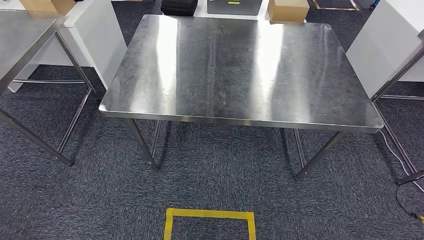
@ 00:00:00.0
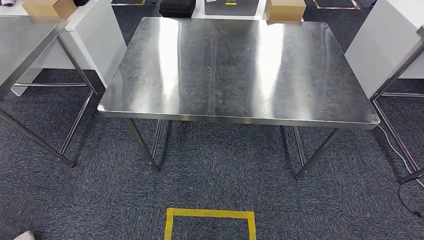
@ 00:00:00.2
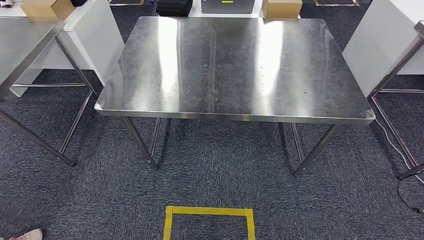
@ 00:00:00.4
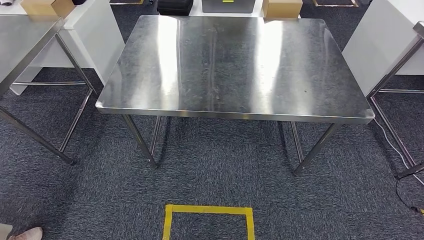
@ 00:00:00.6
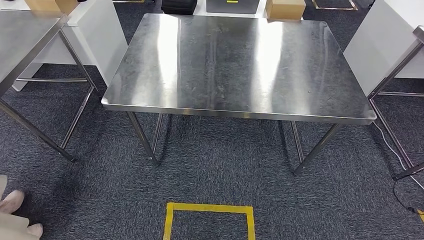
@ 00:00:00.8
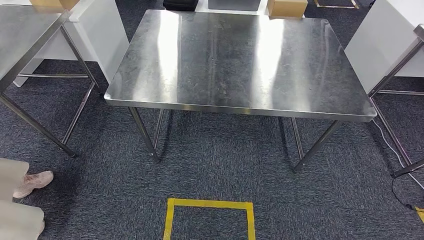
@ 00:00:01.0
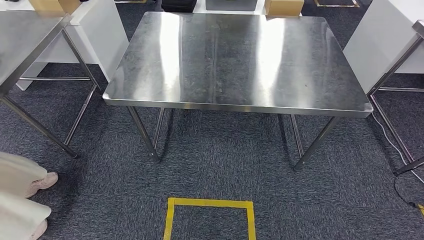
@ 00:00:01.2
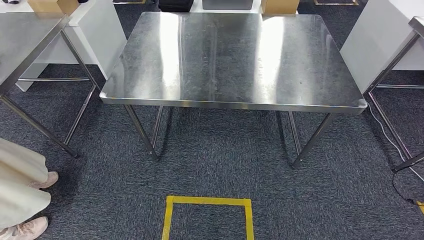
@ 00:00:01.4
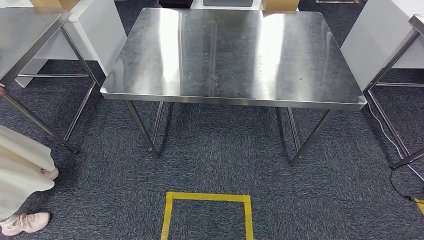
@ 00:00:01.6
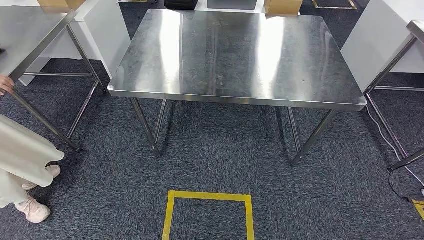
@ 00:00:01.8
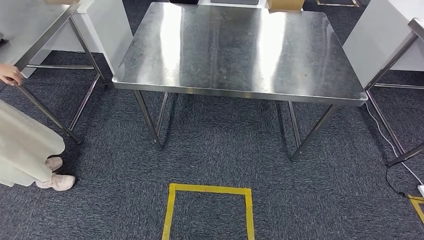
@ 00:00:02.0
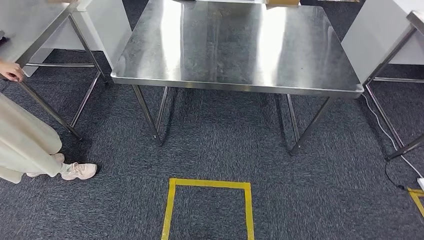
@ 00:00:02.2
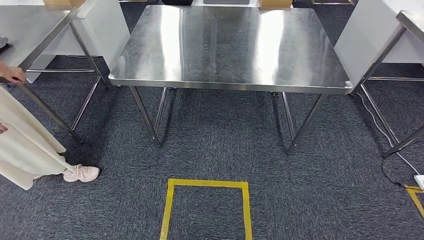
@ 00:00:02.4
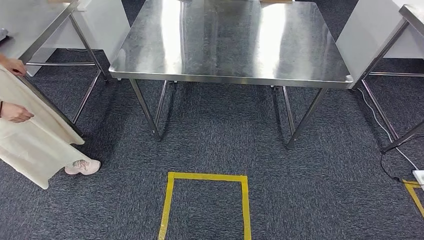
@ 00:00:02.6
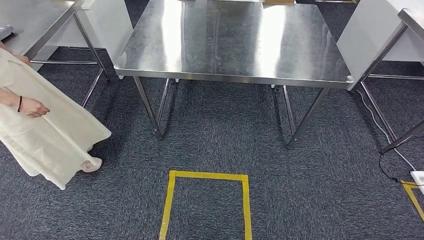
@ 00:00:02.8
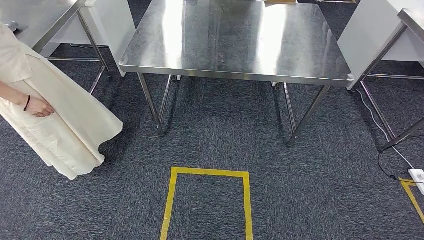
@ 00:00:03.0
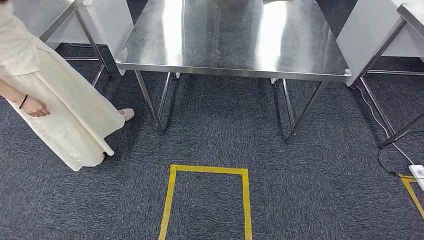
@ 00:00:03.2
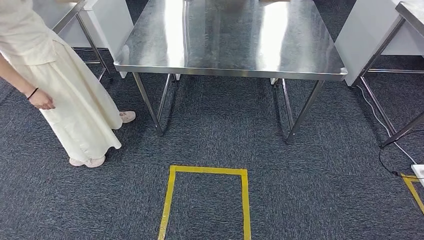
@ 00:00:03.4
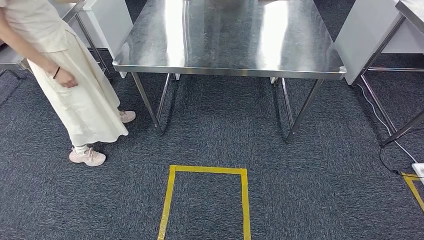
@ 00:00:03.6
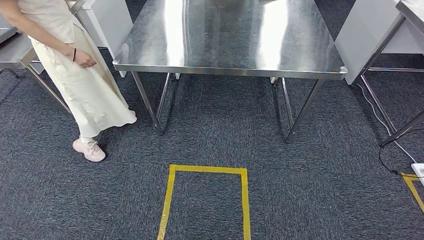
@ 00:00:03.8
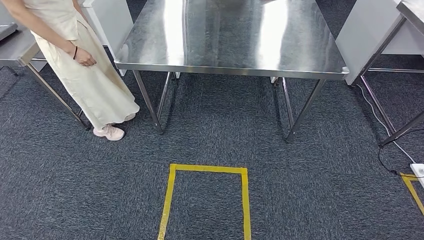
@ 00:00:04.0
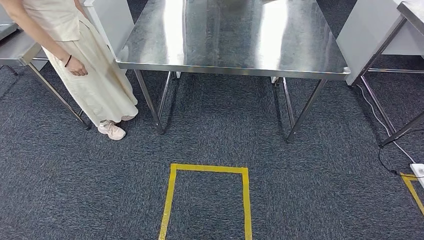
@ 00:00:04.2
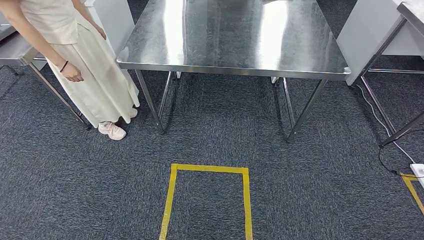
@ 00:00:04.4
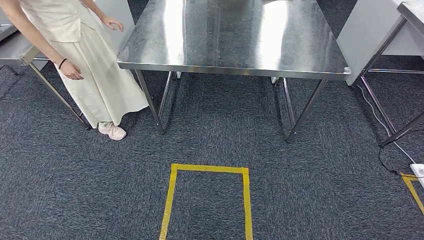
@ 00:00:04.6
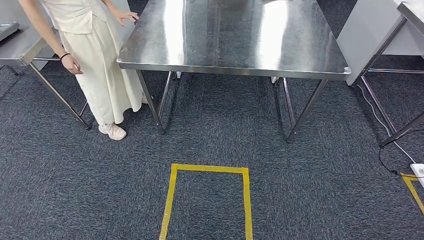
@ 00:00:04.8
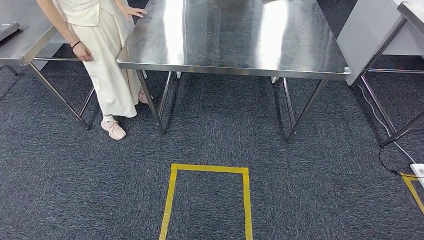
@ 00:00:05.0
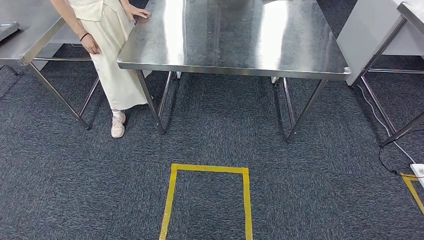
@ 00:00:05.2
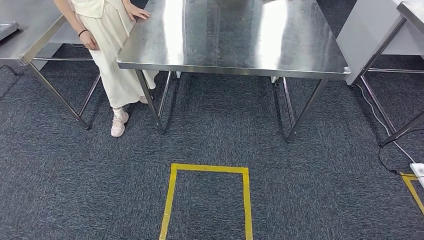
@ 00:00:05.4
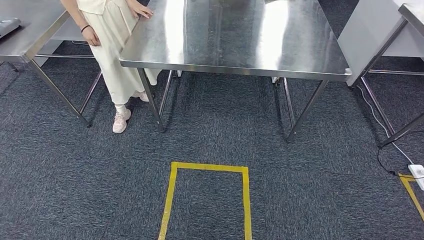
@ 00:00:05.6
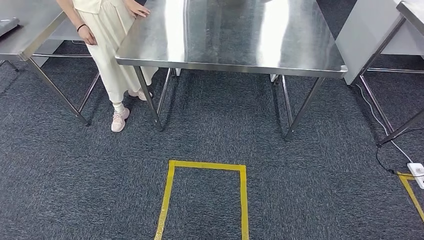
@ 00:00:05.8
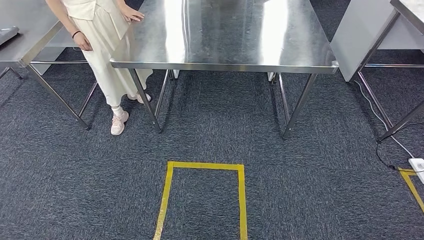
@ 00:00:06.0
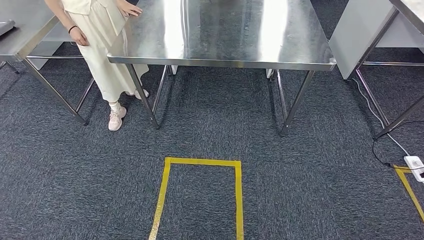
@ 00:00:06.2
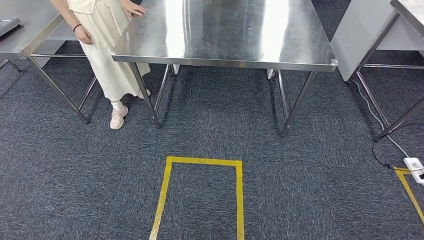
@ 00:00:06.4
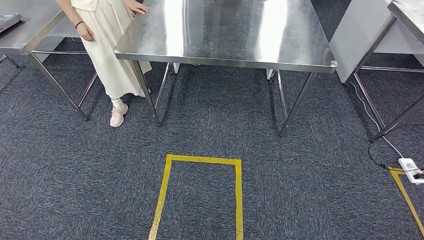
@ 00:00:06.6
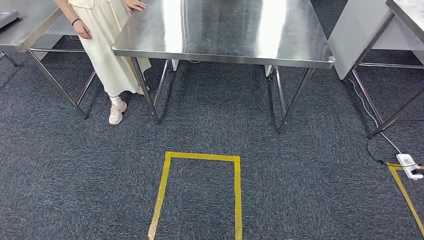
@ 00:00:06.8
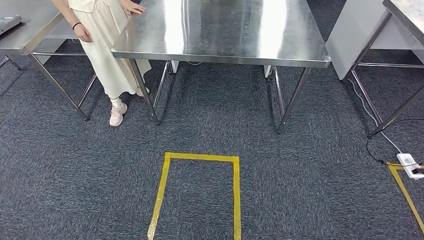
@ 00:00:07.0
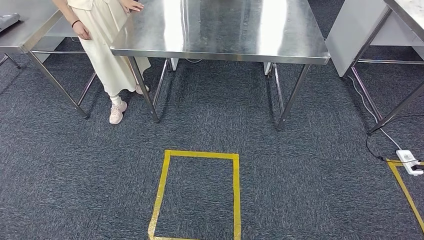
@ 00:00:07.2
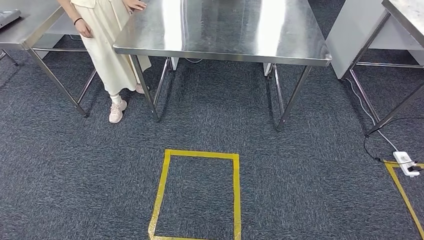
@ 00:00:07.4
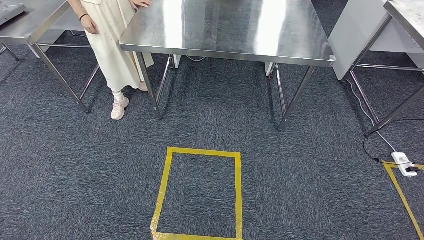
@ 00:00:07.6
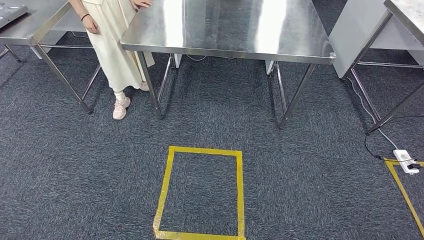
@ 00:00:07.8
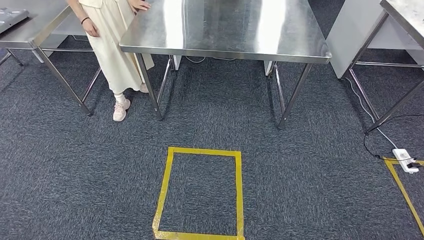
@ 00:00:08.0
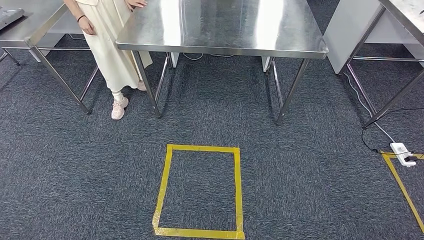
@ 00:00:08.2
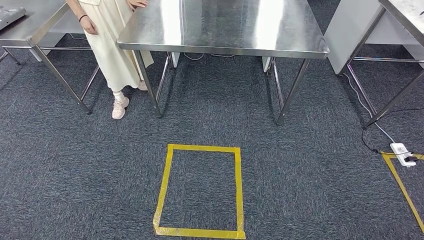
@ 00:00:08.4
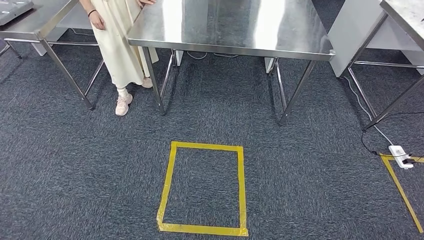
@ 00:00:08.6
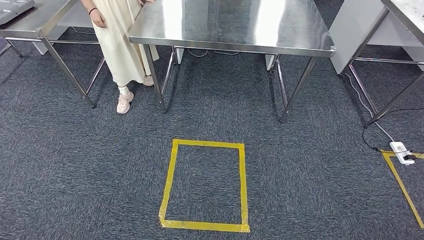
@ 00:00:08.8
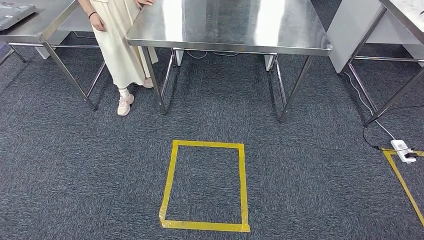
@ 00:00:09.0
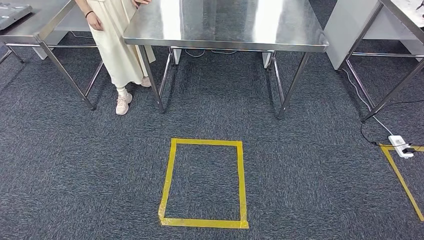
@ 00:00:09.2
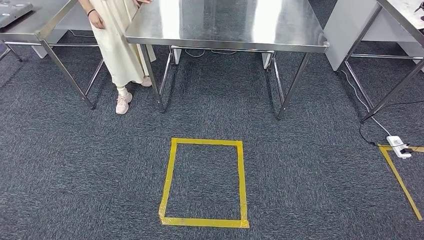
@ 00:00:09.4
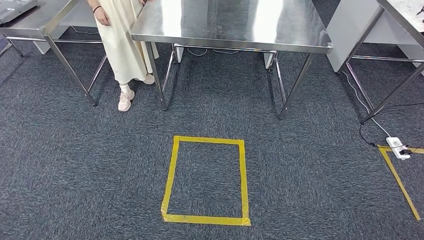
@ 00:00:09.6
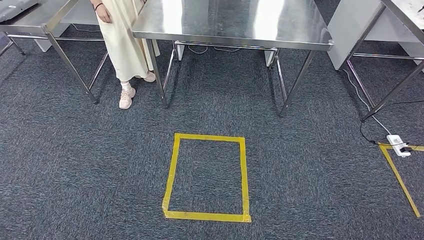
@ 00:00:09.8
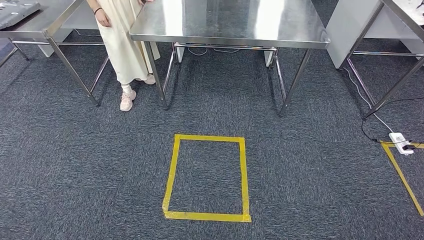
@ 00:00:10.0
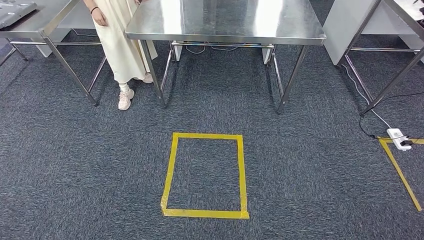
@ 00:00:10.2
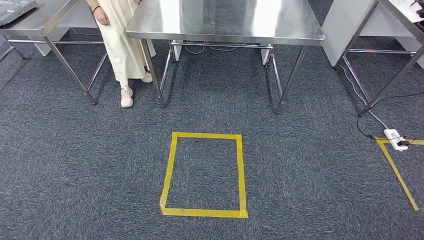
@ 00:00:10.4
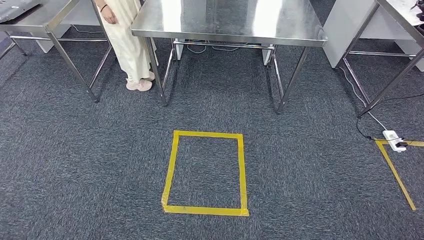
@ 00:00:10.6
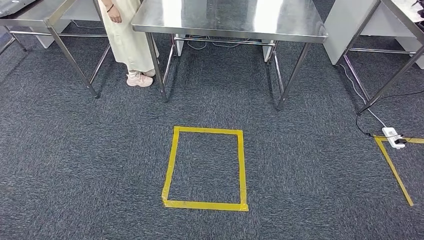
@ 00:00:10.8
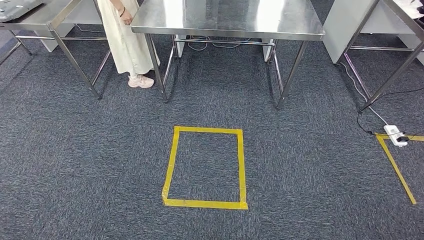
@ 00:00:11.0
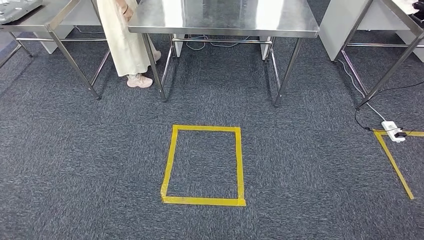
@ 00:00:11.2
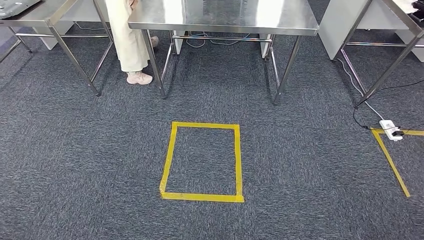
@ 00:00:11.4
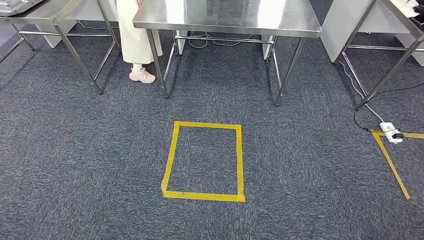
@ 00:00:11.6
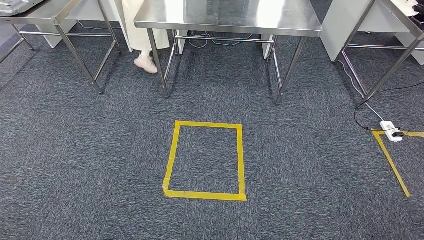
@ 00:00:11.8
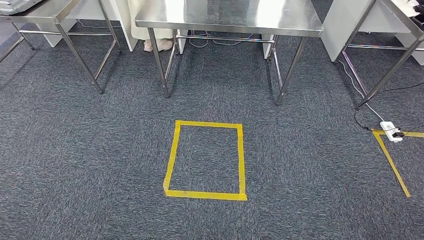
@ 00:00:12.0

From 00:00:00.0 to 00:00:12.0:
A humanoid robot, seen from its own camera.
From 00:00:04.4 to 00:00:06.0: Neither hand changes place.
From 00:00:07.6 to 00:00:12.0: The two hands keep their place.

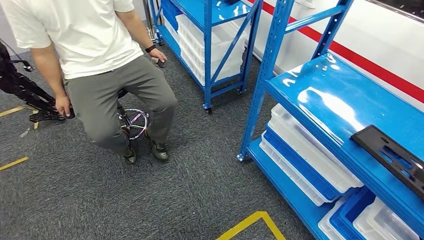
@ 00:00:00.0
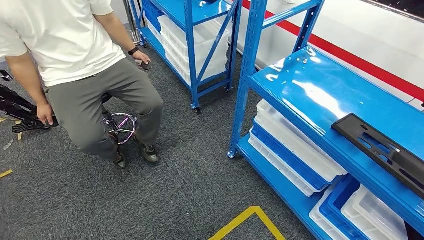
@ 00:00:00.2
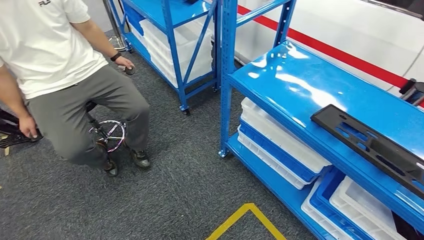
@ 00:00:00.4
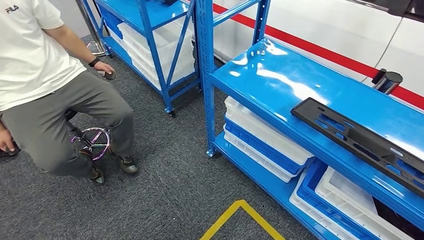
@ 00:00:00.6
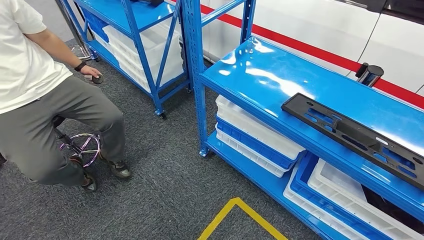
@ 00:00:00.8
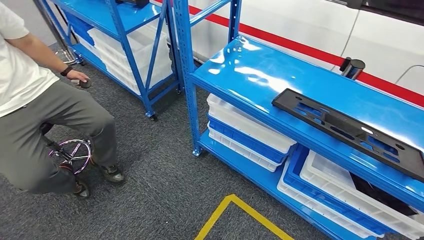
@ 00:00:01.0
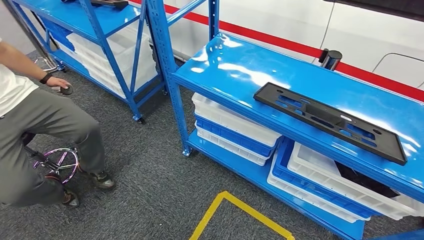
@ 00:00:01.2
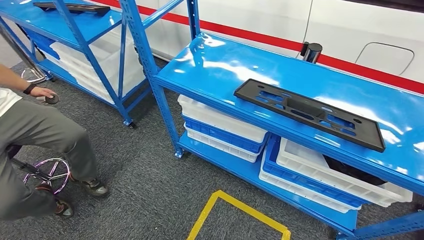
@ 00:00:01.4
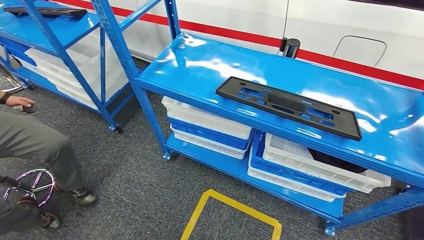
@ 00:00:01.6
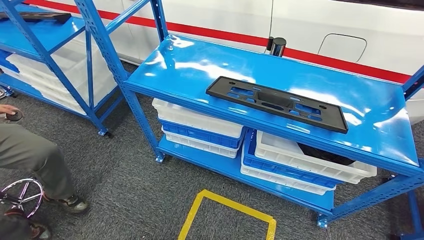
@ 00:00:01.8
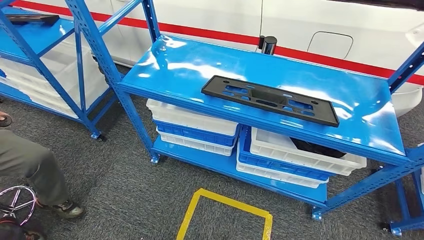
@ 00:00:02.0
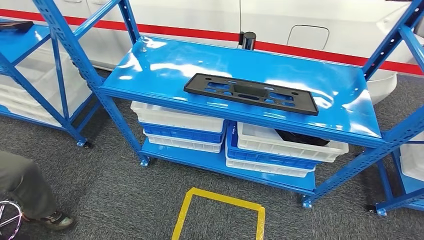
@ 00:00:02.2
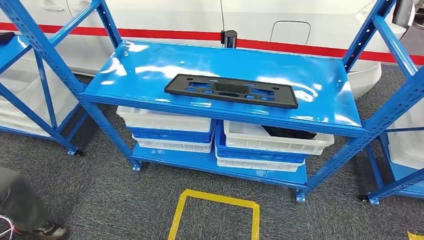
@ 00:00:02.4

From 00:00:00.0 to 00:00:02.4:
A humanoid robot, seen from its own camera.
Step, from 00:00:00.0 to 00:00:02.2: Move to the initial position of the shelf.
